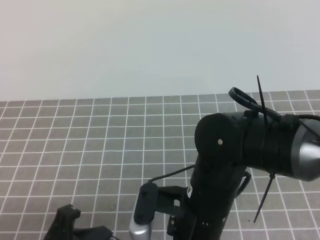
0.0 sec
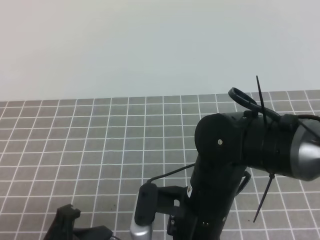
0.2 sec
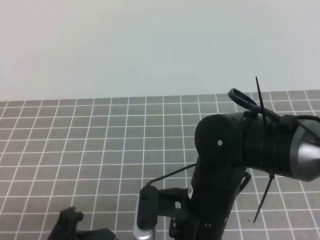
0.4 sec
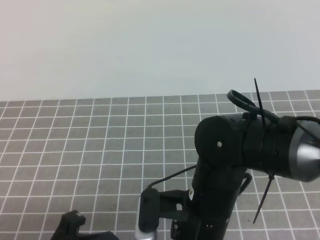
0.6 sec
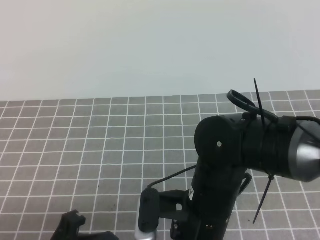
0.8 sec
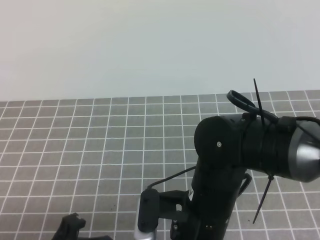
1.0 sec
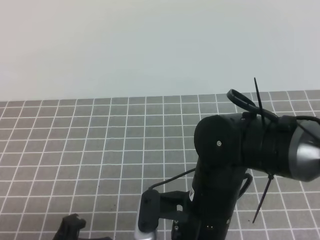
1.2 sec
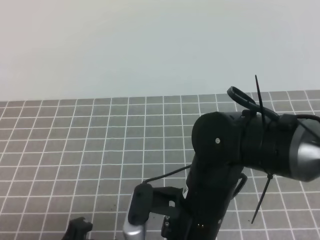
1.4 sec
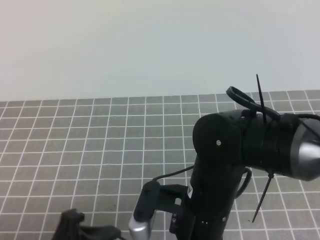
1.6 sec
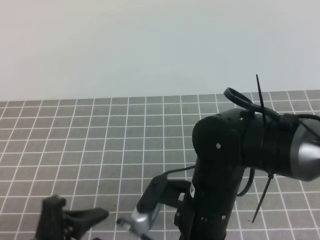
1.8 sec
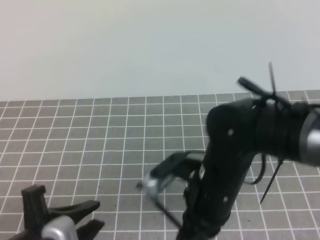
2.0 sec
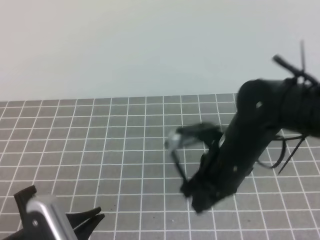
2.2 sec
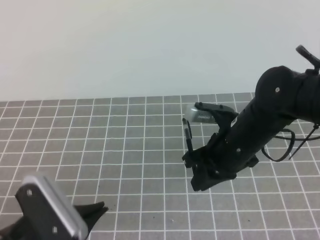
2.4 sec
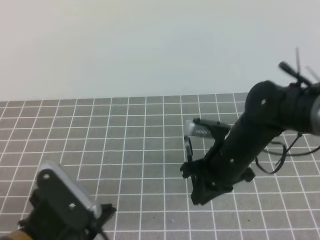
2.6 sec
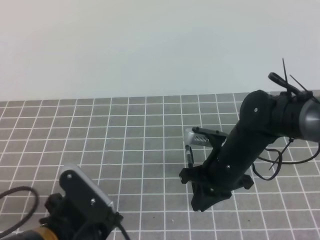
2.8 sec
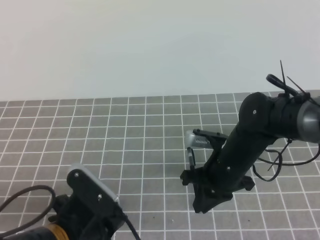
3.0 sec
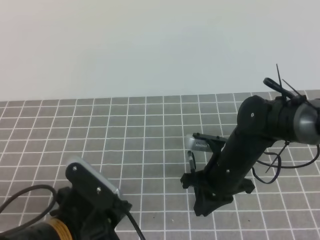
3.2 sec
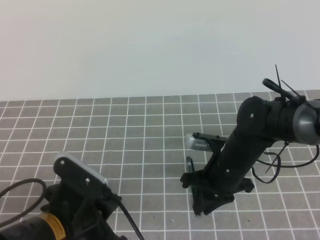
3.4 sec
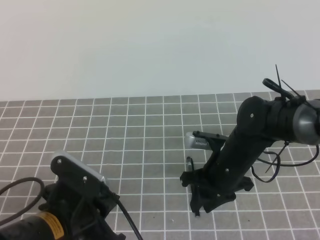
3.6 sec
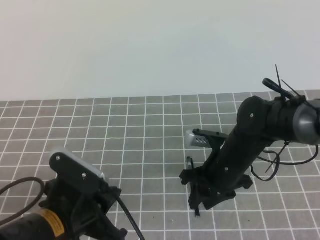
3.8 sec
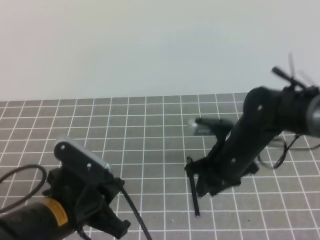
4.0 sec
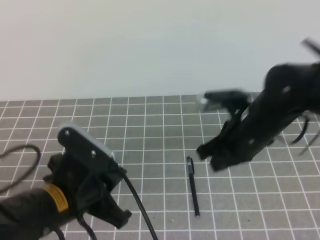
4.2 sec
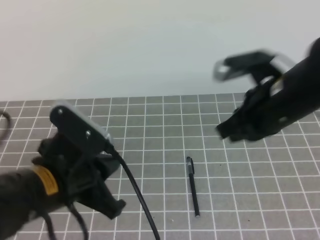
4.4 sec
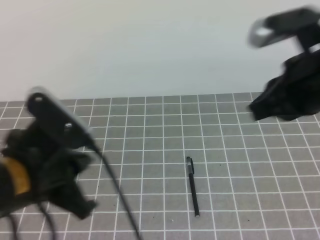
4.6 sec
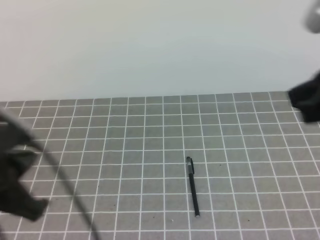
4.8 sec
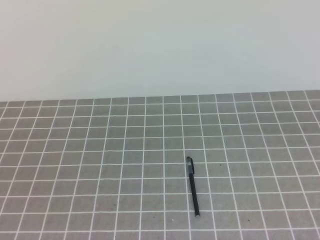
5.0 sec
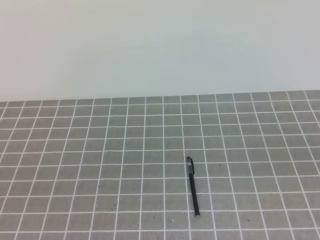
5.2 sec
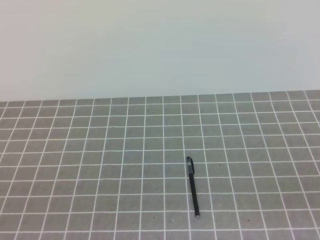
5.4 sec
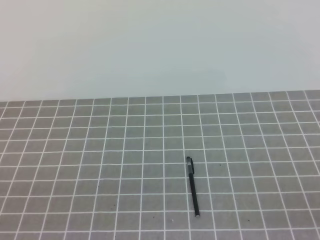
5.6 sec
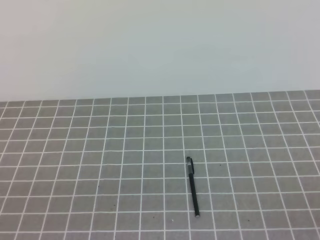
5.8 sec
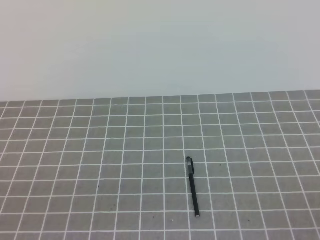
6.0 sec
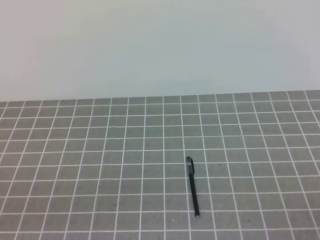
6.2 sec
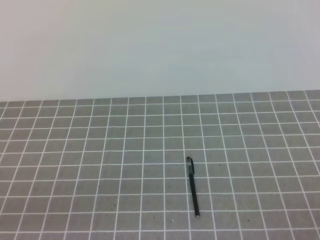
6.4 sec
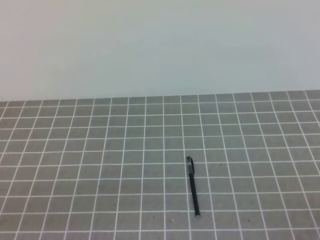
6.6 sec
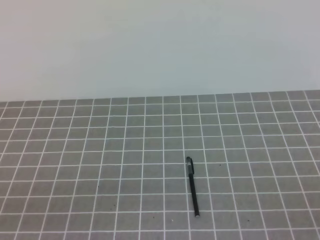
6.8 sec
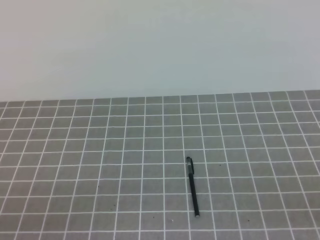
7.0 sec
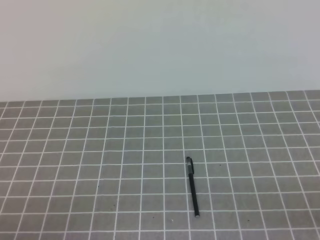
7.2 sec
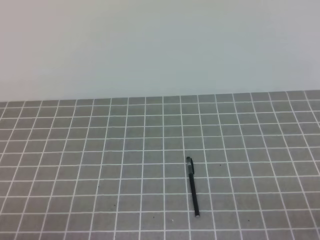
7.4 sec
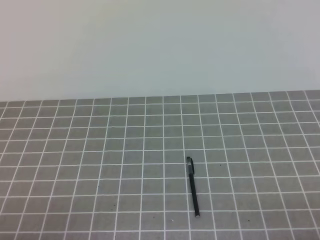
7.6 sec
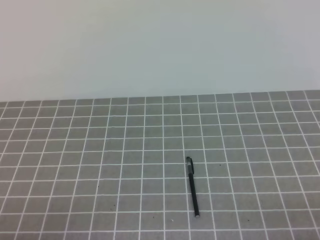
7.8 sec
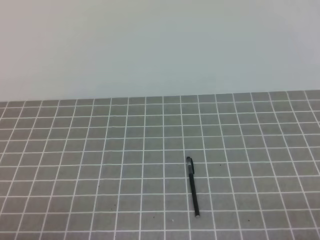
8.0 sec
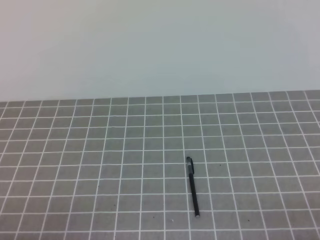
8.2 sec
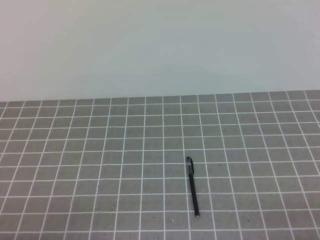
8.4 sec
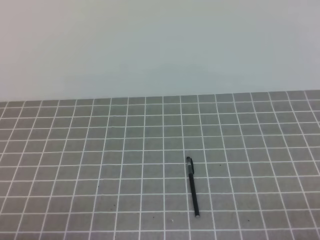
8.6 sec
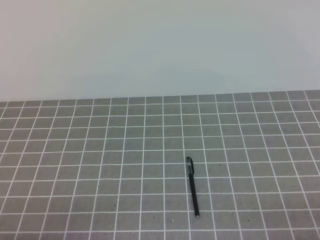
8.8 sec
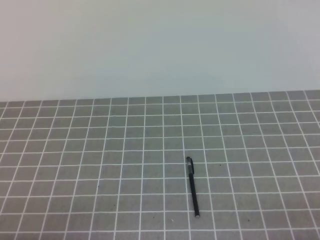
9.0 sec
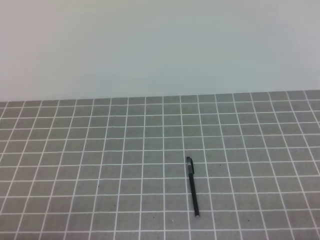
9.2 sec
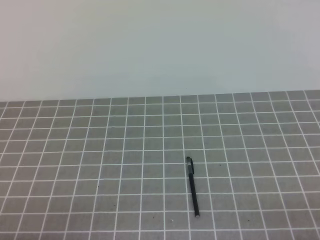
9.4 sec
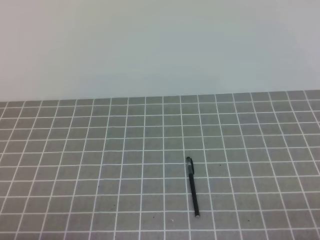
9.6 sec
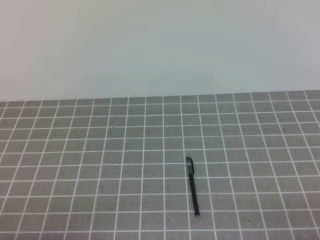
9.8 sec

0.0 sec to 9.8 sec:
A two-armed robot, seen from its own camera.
Task of the whole recording: on the grey tablecloth, hold the pen cap in one hand and the pen in the other, then cover the pen cap.
Step, 0.0 sec to 9.8 sec: Put the cap on the pen.
0.0 sec to 1.4 sec: Both grippers stay put.
1.4 sec to 2.8 sec: The left gripper goes approximately 5 cm forward, and closes up, while the right gripper is displaced forward, to the right and downward by about 15 cm.
2.8 sec to 4.2 sec: The right gripper heads upward, covering roughly 10 cm, and opens, then closes again.
4.2 sec to 5.6 sec: The left gripper shifts about 20 cm backward and to the left; the right gripper shifts roughly 30 cm backward and to the right.
8.4 sec to 9.8 sec: Both grippers stay about where they are.
